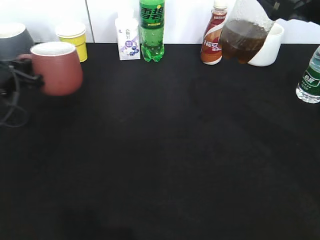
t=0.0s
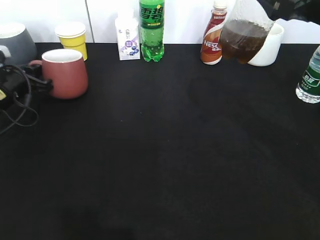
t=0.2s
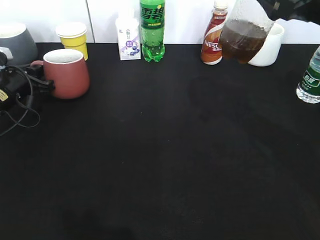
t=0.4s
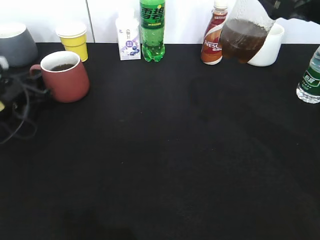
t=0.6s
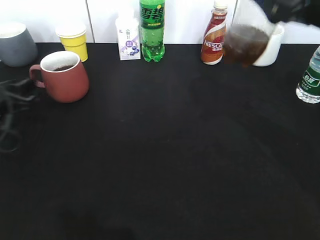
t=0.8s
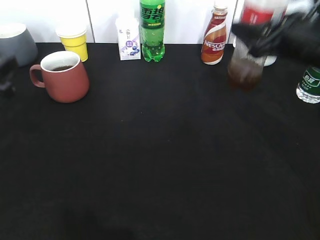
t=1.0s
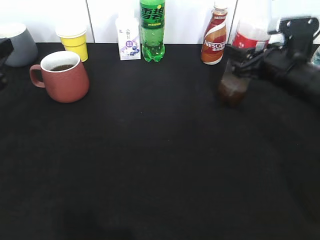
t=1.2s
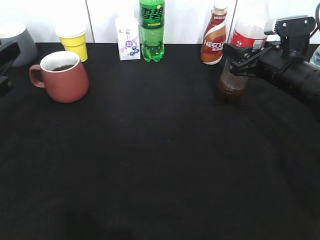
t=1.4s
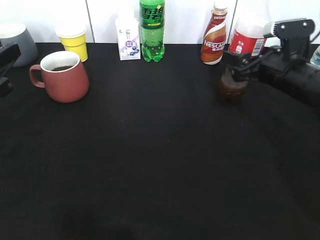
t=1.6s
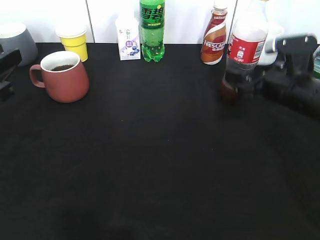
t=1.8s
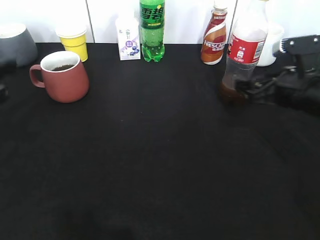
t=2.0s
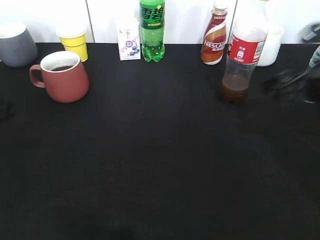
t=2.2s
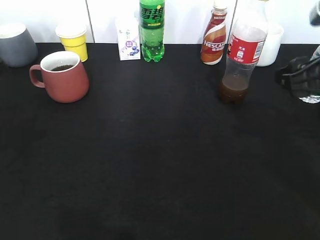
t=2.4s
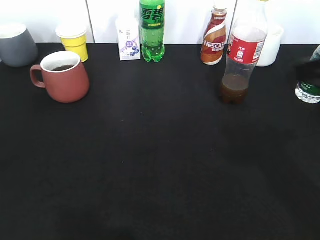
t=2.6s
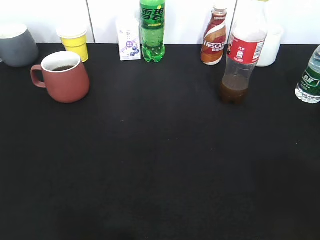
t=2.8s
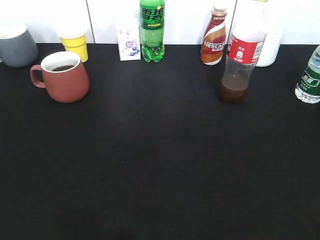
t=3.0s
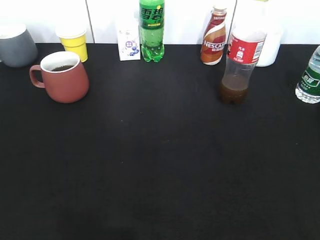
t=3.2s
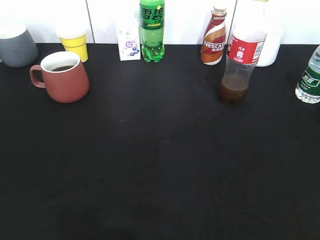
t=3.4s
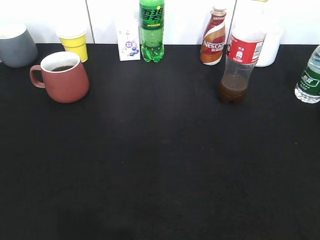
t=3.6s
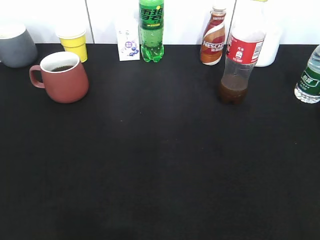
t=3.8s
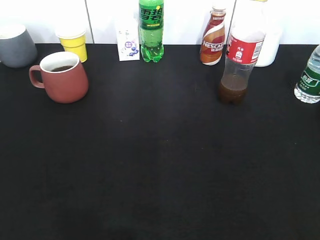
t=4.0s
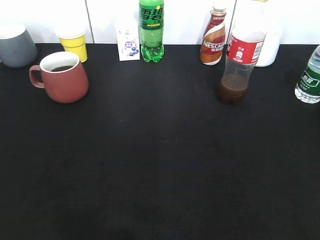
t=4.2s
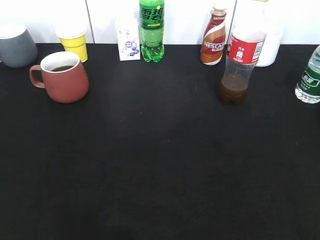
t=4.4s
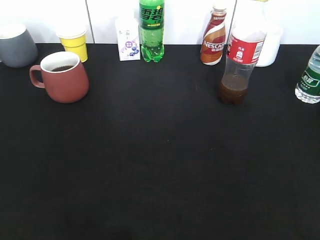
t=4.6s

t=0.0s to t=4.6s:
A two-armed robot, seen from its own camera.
Step, t=0.0s to t=1.8s: Place the cola bottle on the table with right gripper.
t=0.0s to t=1.6s: The right gripper is displaced downward and forward by some 15 cm, and opens up. Meanwhile the left gripper shifts about 15 cm backward and upward, and opens up.
t=1.6s to t=3.0s: Both grippers move backward, roughly 30 cm. The right gripper closes.
